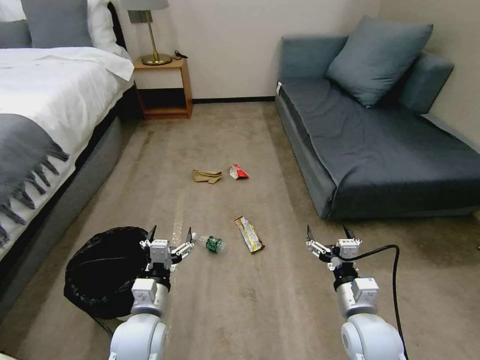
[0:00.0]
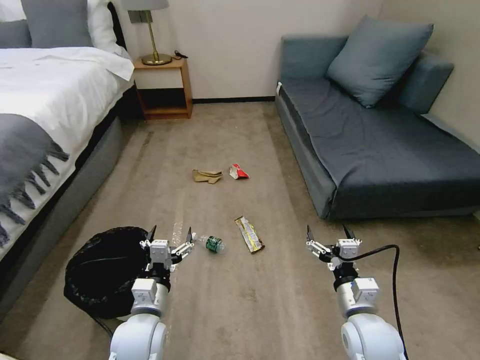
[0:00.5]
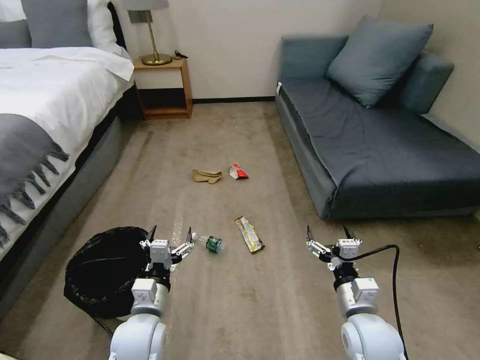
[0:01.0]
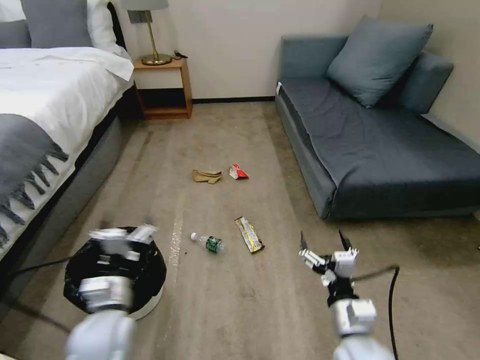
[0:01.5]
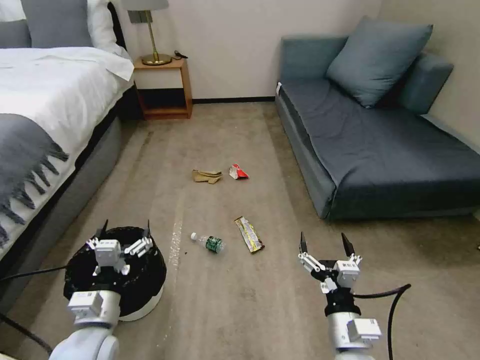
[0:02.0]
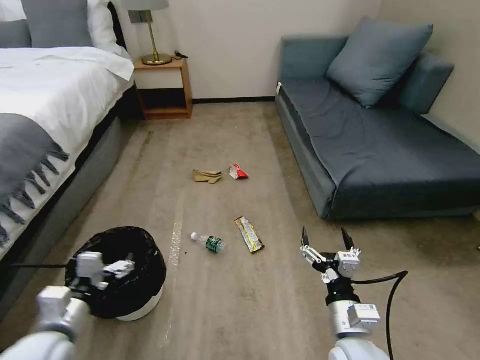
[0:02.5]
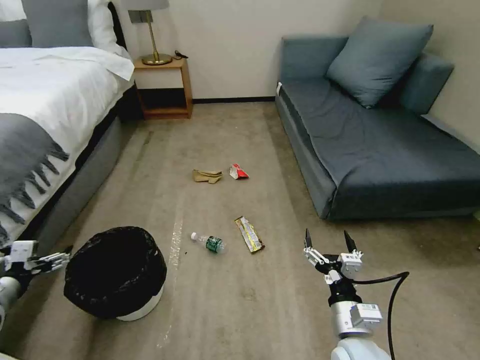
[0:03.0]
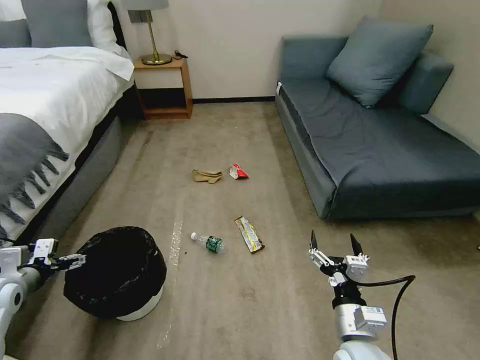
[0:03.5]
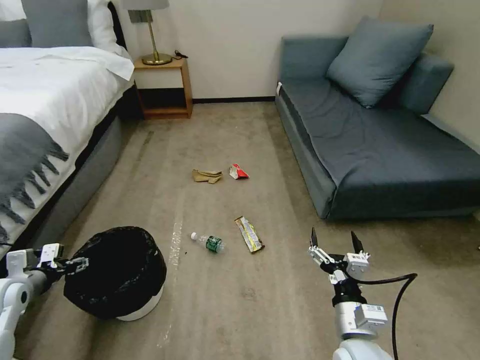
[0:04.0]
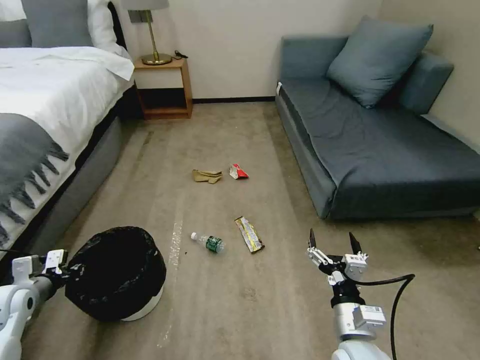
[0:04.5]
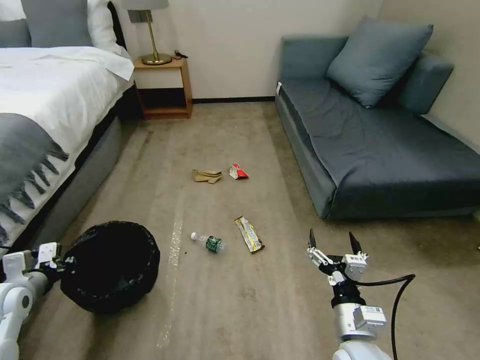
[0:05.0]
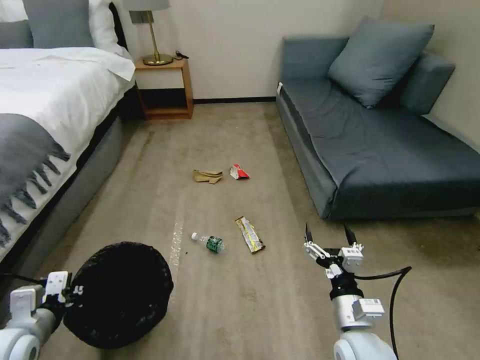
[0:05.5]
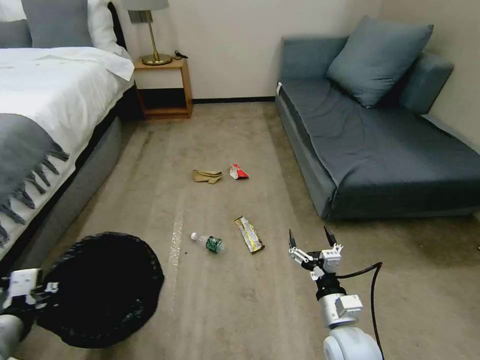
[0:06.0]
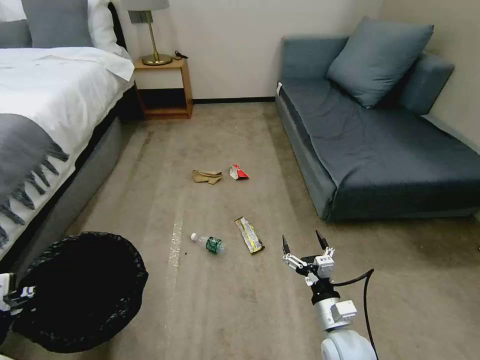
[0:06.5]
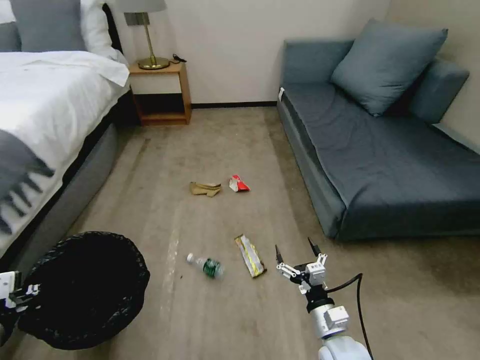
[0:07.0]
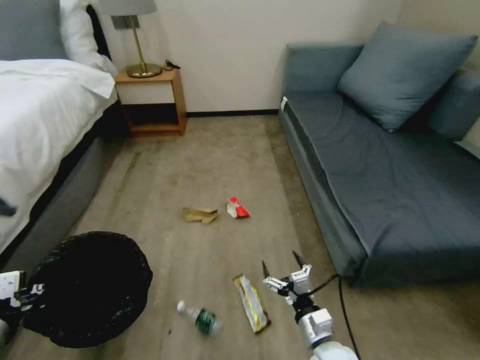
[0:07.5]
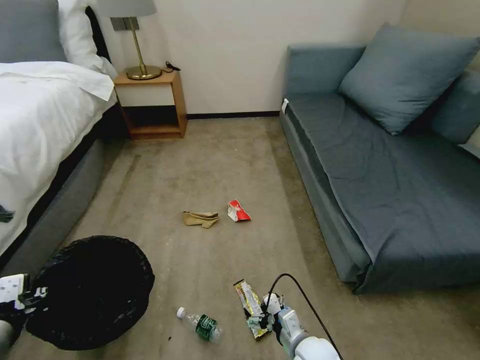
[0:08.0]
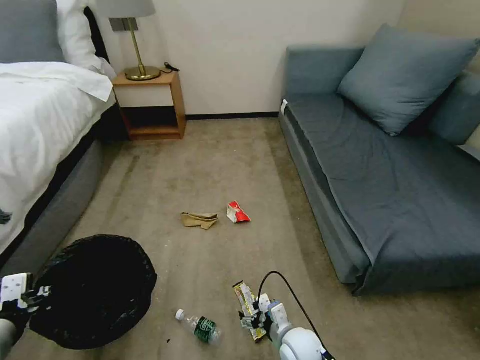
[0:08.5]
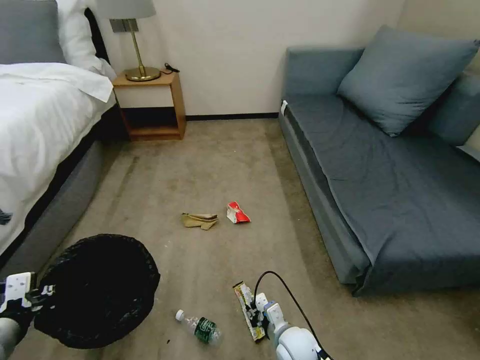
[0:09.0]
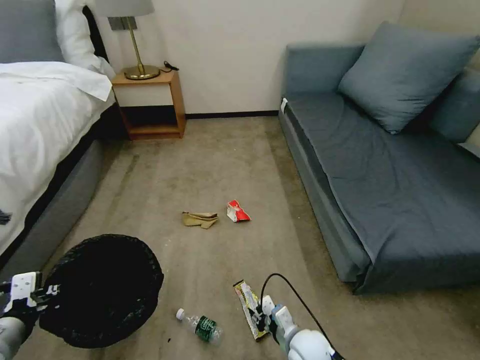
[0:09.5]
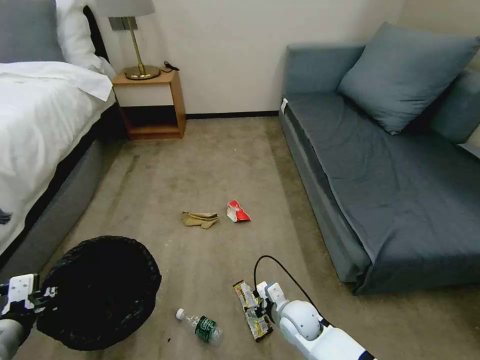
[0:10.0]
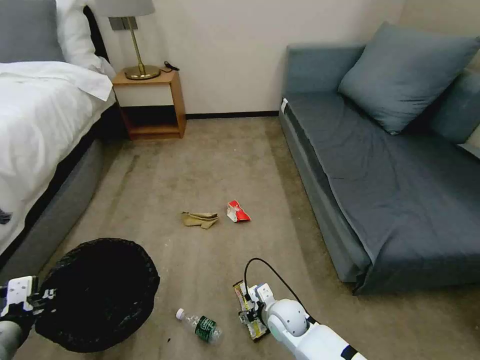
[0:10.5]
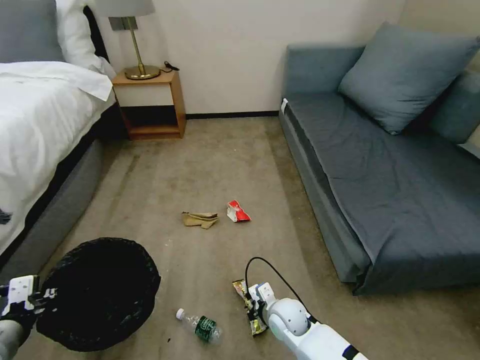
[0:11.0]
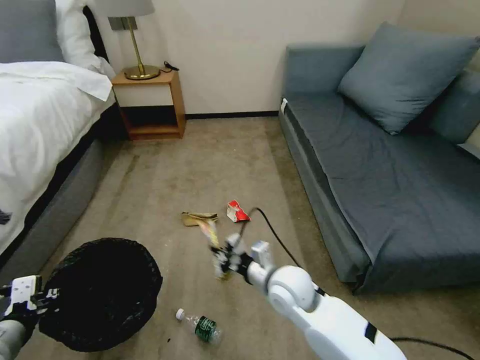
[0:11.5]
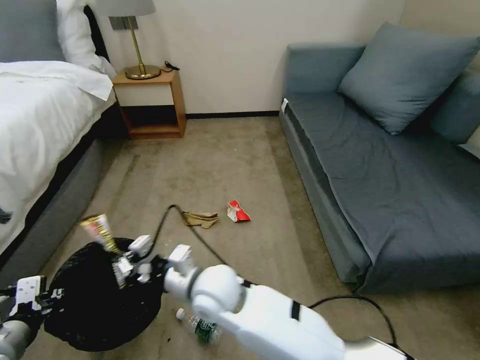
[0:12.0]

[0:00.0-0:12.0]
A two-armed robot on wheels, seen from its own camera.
Task of the whole recording: Pick up the trash bin, then pick up the garbage on the floor and place it into the trash bin.
0:02.0 to 0:04.0: The left gripper is displaced to the left by about 25 cm.
0:04.0 to 0:06.0: The left gripper travels backward, to the right and upward by about 20 cm, and closes its fingers; the right gripper changes place by approximately 5 cm.
0:06.0 to 0:08.0: The right gripper shifts about 10 cm downward and to the left.
0:08.0 to 0:10.0: The right gripper moves forward, some 10 cm, and closes, then opens again.
0:10.0 to 0:12.0: The right gripper goes roughly 30 cm to the left and upward, and closes.

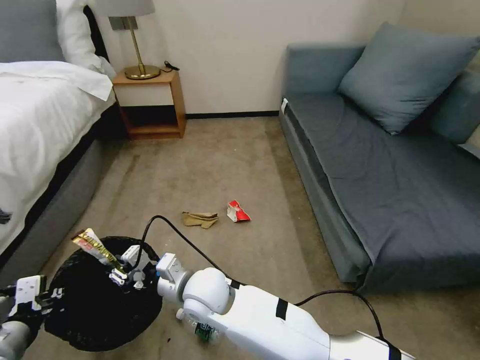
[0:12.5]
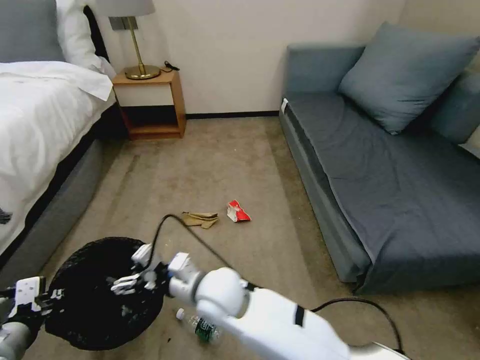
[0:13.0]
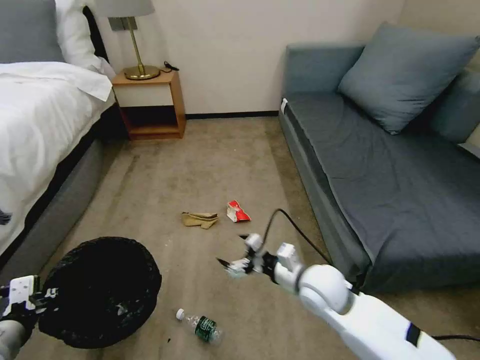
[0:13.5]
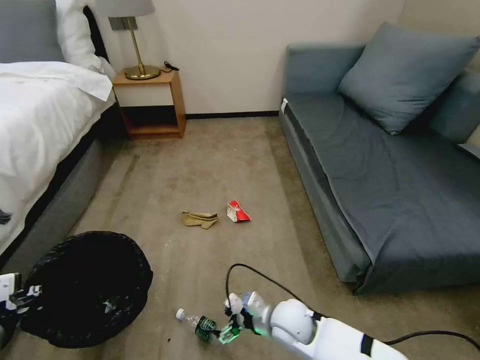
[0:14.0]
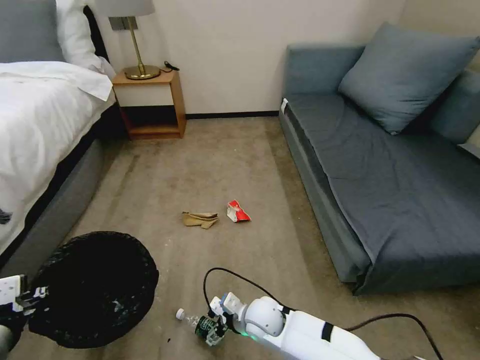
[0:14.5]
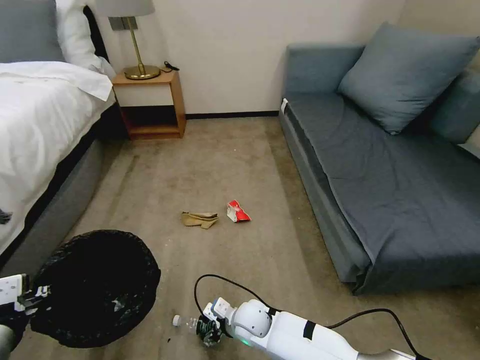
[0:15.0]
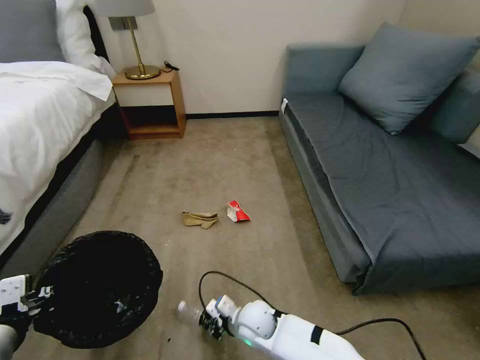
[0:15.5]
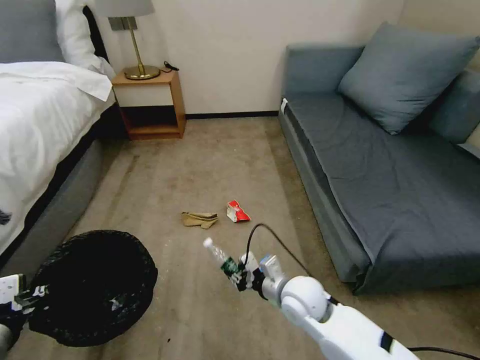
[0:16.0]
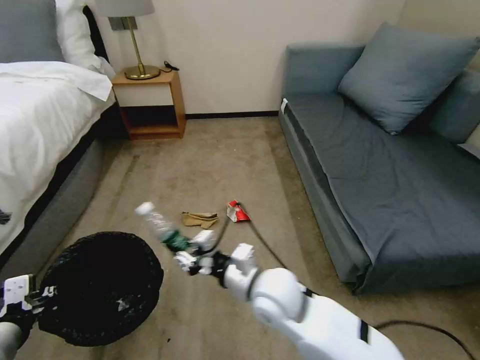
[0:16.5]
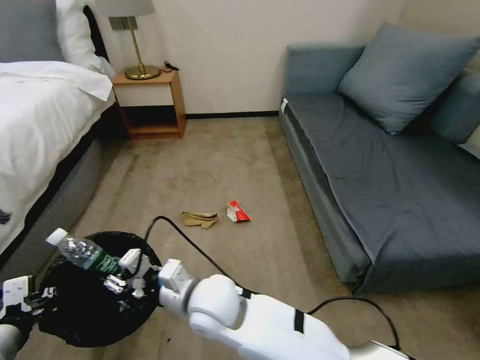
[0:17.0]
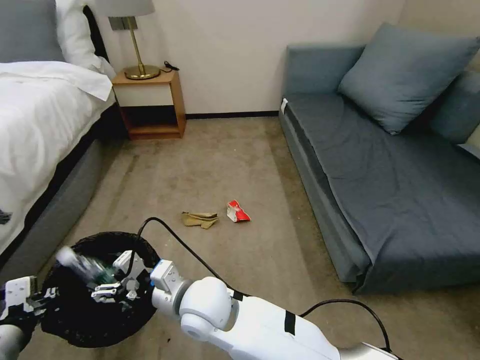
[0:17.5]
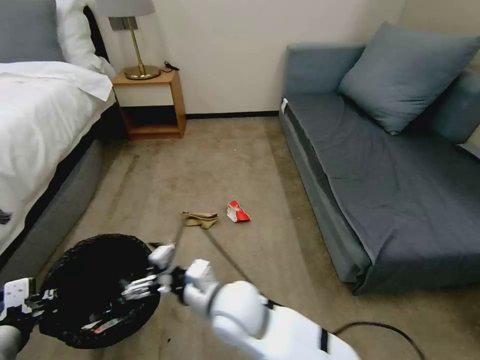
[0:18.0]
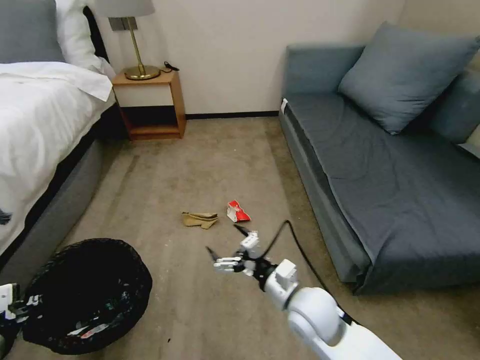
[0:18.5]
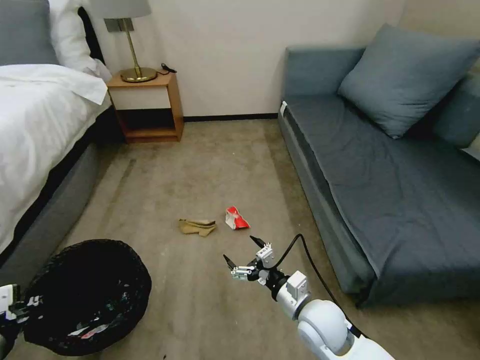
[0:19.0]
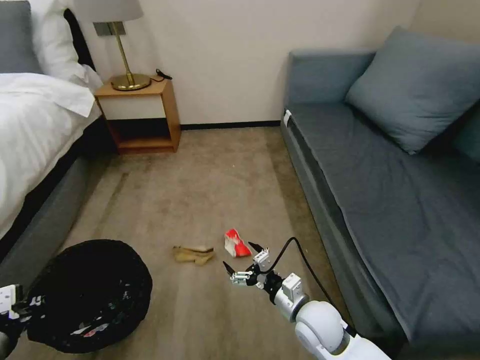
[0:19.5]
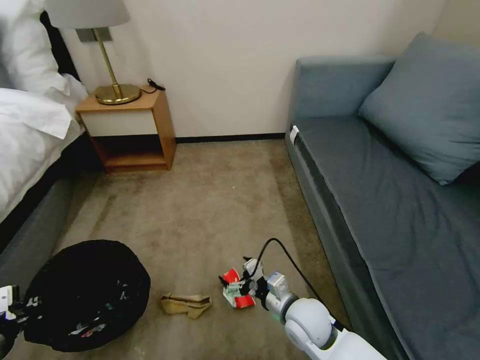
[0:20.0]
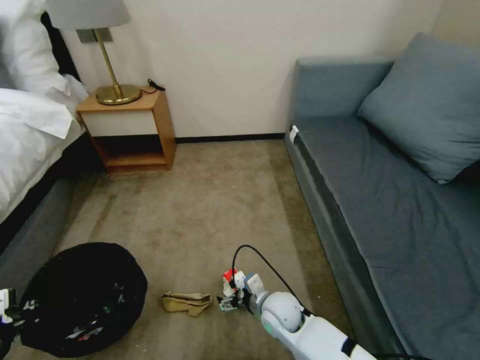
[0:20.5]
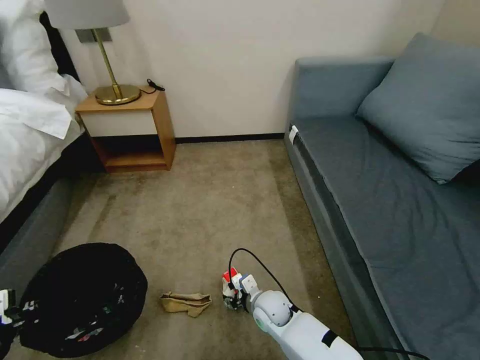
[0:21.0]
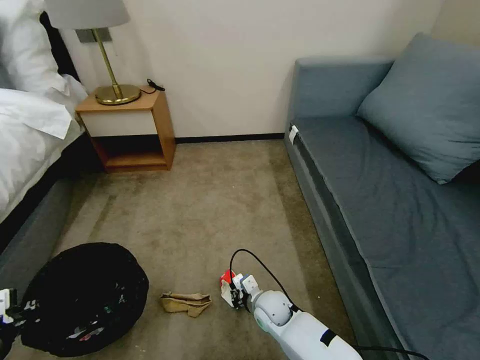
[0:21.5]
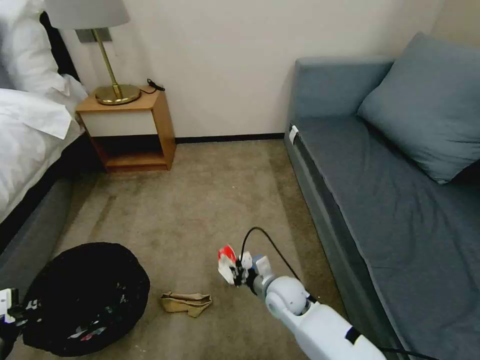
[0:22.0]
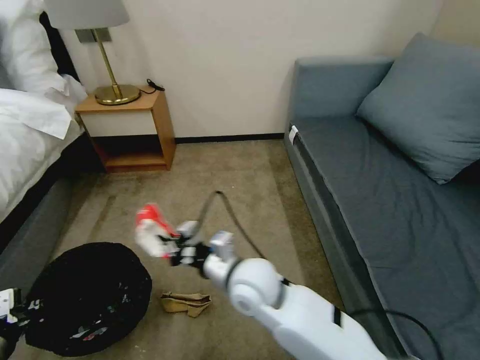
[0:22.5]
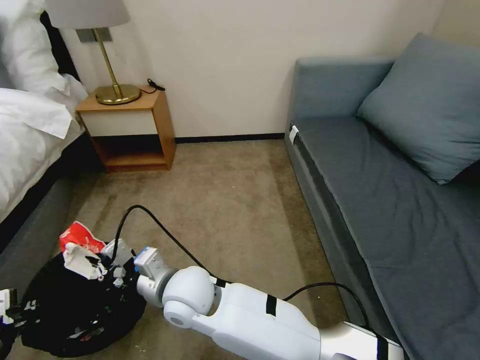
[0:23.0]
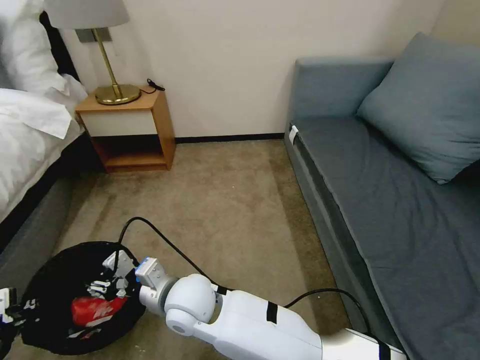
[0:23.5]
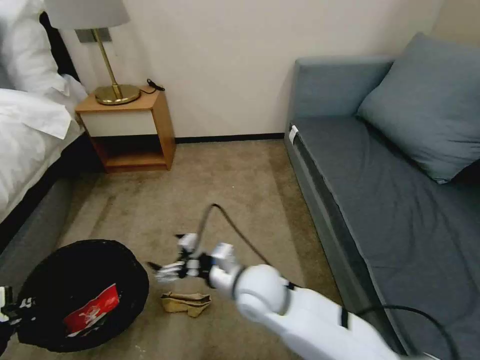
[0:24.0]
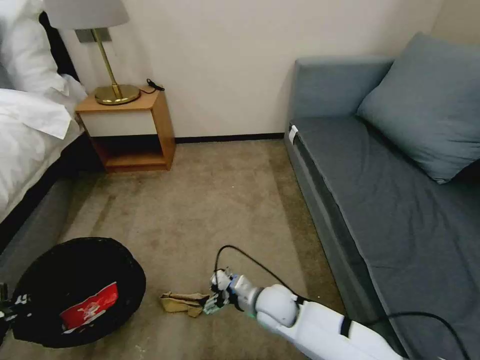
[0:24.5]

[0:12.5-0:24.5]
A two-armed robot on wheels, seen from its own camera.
Task of the whole recording: Pick up the trash bin, then pick up the garbage on the floor and place it into the trash bin.
0:12.5 to 0:14.5: The right gripper shifts approximately 20 cm downward and to the right, and opens.
0:14.5 to 0:16.5: The right gripper travels upward by approximately 20 cm, and closes.
0:16.5 to 0:18.5: The right gripper travels to the left and back again, about 15 cm each way, and opens up.
0:18.5 to 0:20.5: The right gripper moves downward, some 10 cm.
0:20.5 to 0:22.5: The right gripper heads upward and to the left, covering some 20 cm, and closes its fingers.
0:22.5 to 0:24.5: The right gripper shifts roughly 15 cm downward, reaches approximately 10 cm to the left, then returns, and opens.

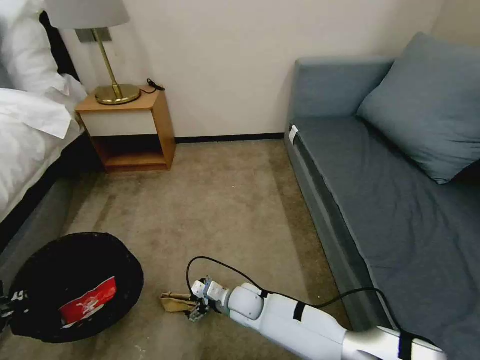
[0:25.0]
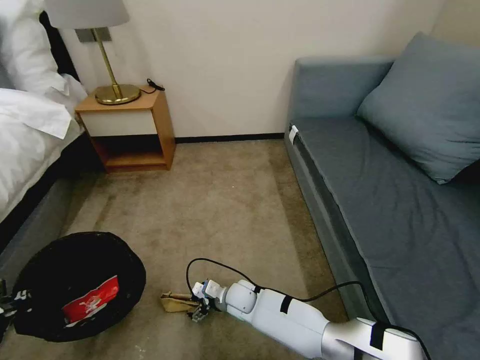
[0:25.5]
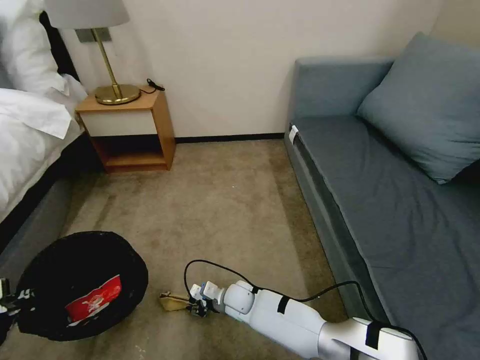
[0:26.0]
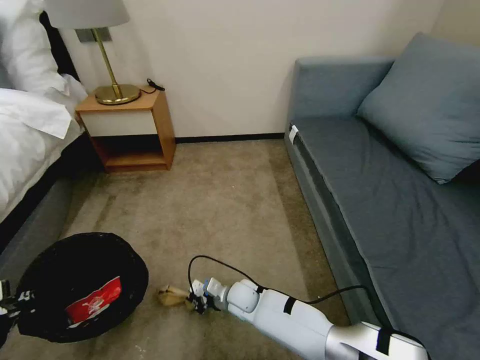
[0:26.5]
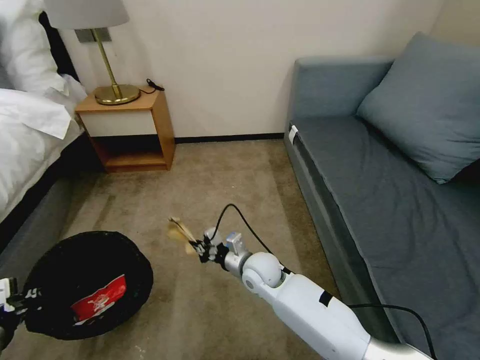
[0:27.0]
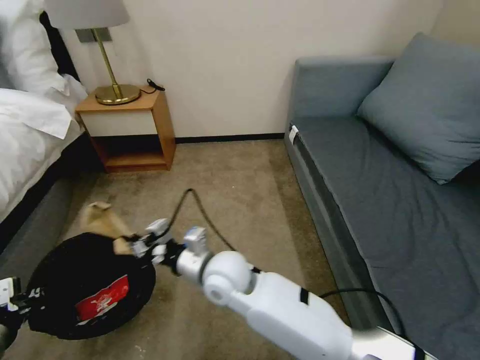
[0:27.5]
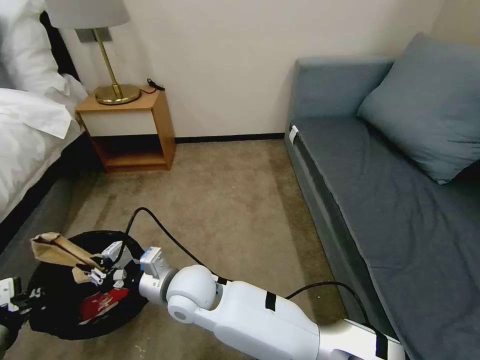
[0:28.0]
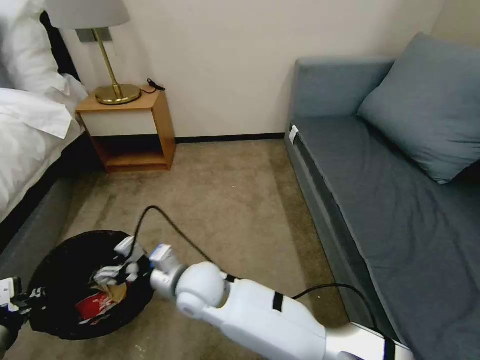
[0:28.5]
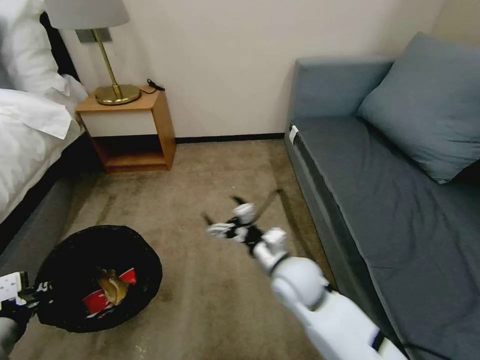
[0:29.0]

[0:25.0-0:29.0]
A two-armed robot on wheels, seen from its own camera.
Task of the whole recording: Pick up the trash bin, then pick up the garbage on the floor and place it into the trash bin.
0:25.0 to 0:27.0: The right gripper heads upward, covering approximately 10 cm, and closes up.
0:27.0 to 0:29.0: The right gripper goes some 10 cm upward and backward, moves approximately 15 cm to the left and comes back, and opens up.
